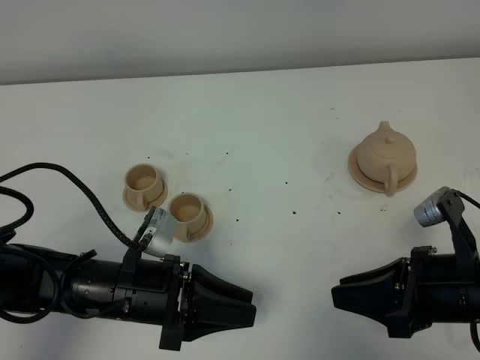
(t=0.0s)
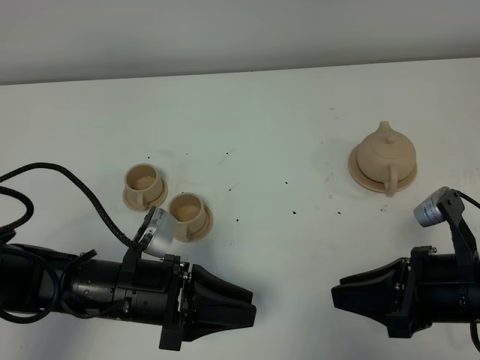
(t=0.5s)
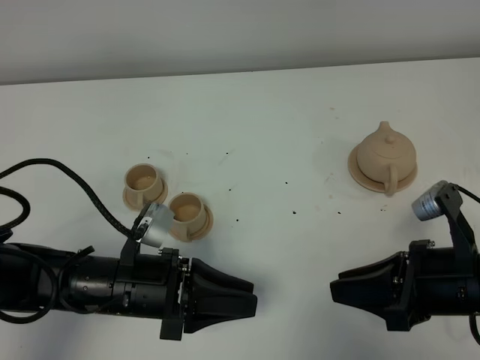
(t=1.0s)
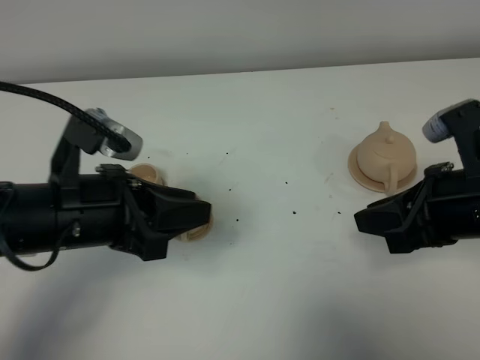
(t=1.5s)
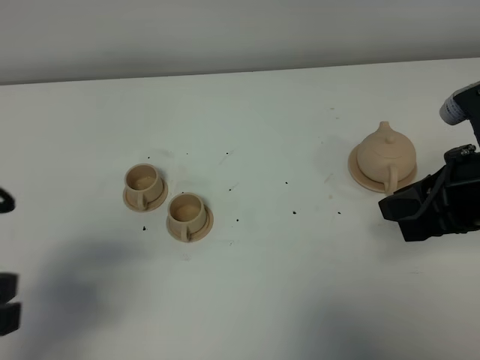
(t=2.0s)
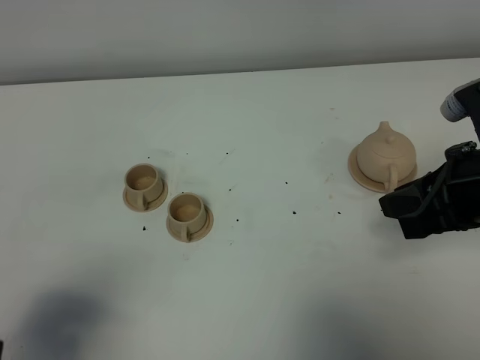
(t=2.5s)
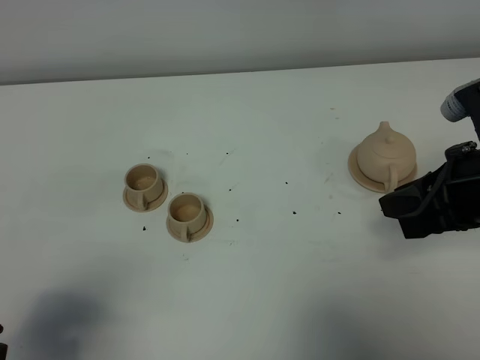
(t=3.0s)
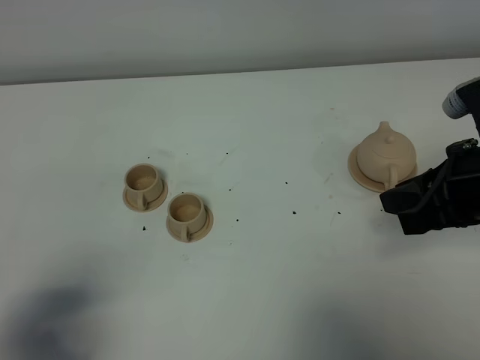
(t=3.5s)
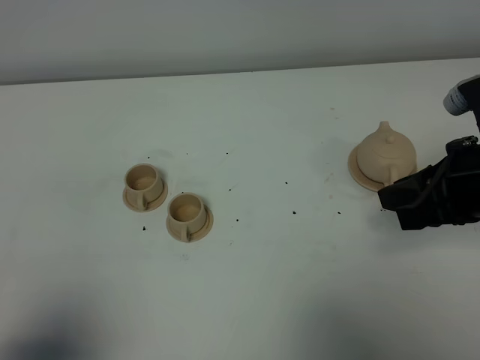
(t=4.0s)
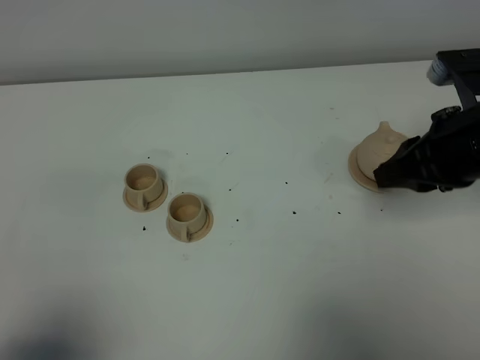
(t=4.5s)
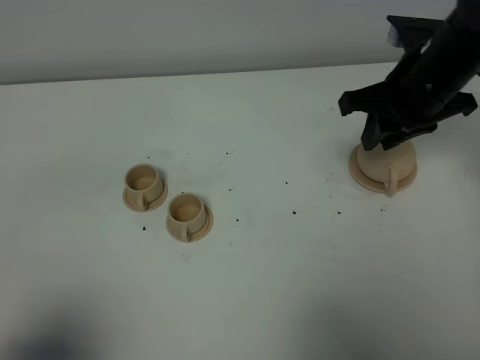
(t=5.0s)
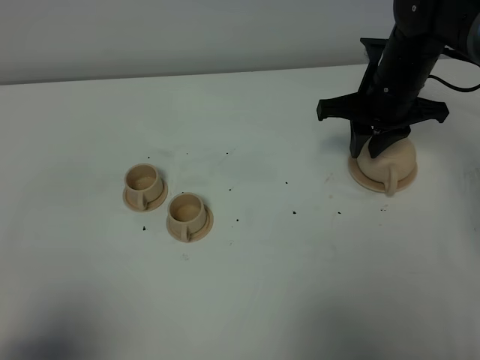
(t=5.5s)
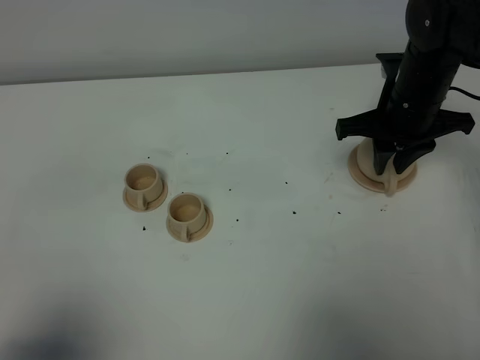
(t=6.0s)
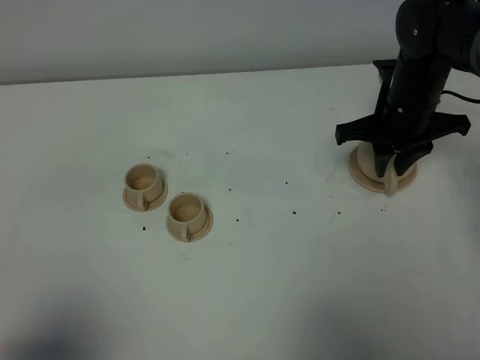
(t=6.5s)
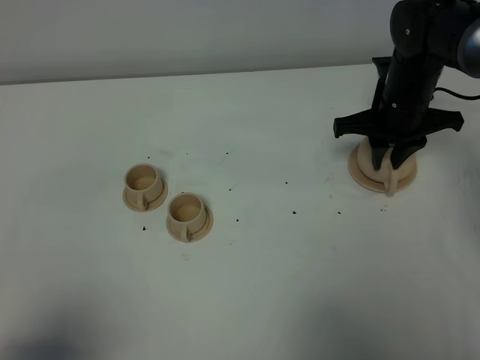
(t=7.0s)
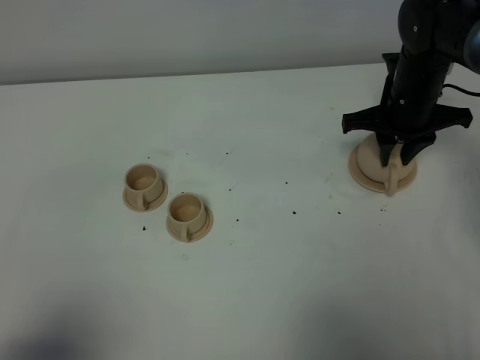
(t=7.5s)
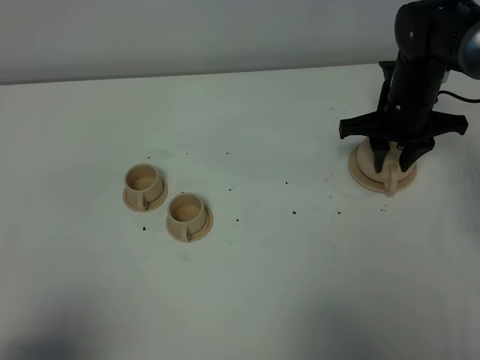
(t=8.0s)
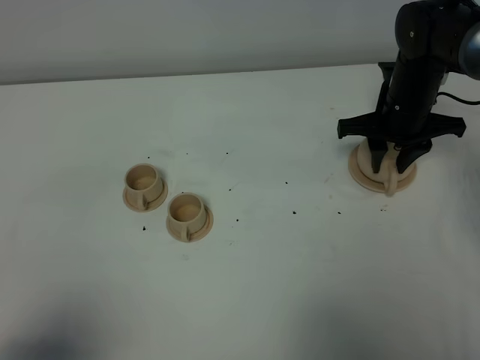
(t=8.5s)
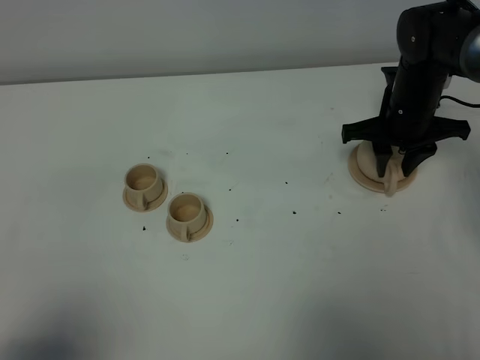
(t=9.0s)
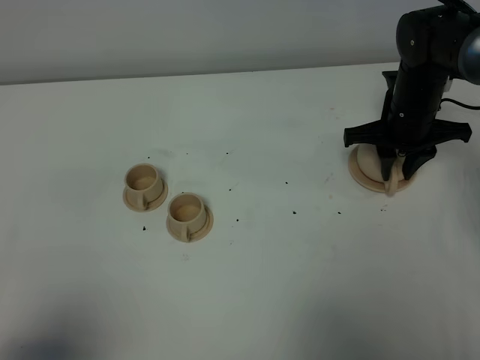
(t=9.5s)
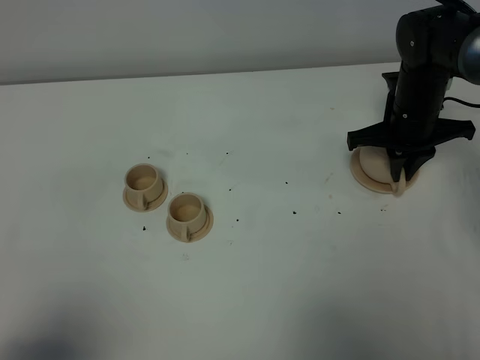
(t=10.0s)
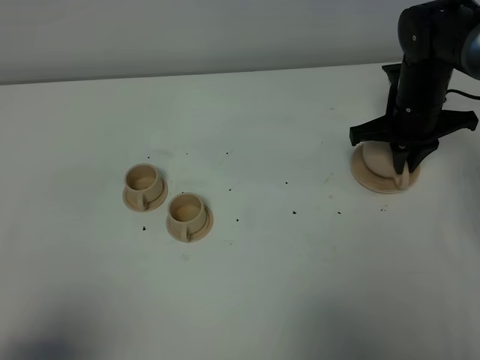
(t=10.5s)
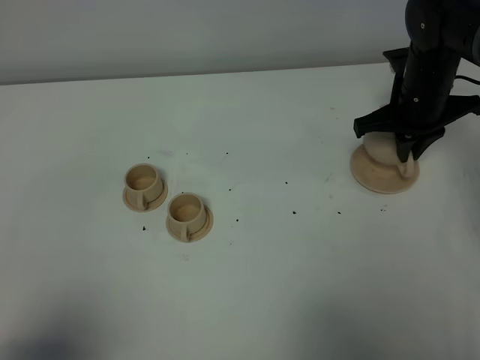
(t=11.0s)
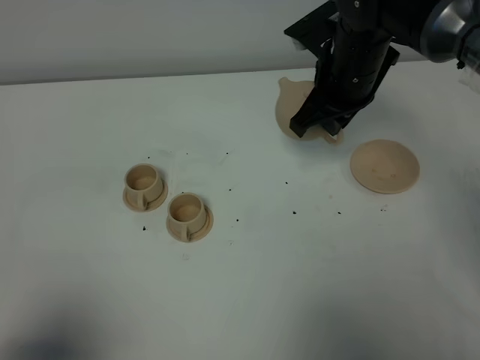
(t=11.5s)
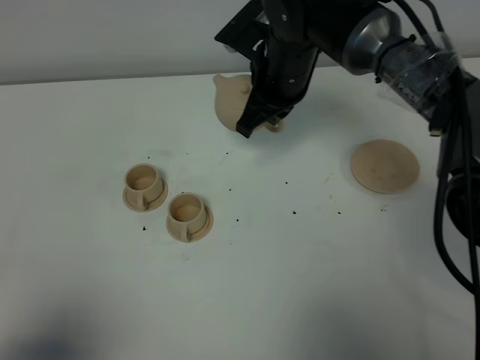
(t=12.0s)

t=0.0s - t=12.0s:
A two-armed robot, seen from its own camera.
Task of the whole recording: grasp the brown teapot and pour the tea into the two brown teacups one by one, put the brown teapot back in its original place.
Step, t=0.0s - t=10.5s: Pick up the teapot with the right gripper.
t=0.0s - t=2.0s: The left gripper moves upward, to the left and backward, some 25 cm. The right gripper goes some 10 cm upward and forward.
t=2.0s - t=4.0s: The left gripper is displaced backward by approximately 10 cm.
t=4.0s - t=6.0s: The right gripper travels forward by approximately 15 cm.
t=6.0s - t=8.0s: The right gripper changes place by some 5 cm, and opens.
t=8.0s - t=10.0s: The right gripper closes its fingers.
t=10.0s - t=12.0s: The right gripper moves to the left and upward, roughly 20 cm.

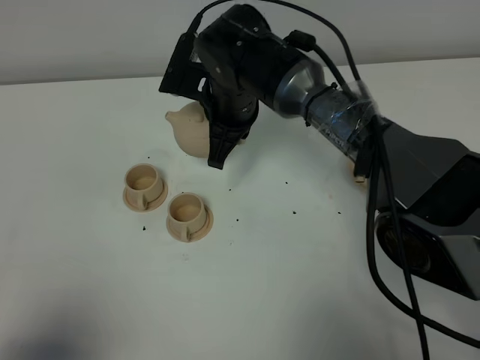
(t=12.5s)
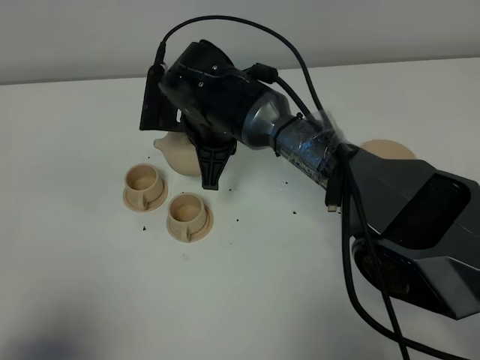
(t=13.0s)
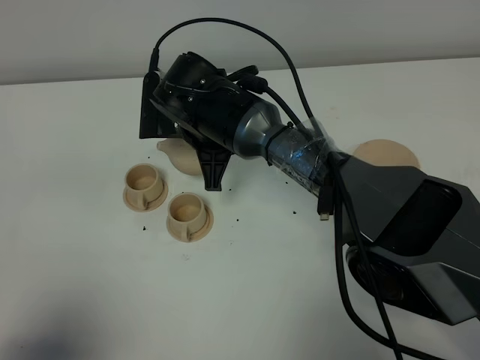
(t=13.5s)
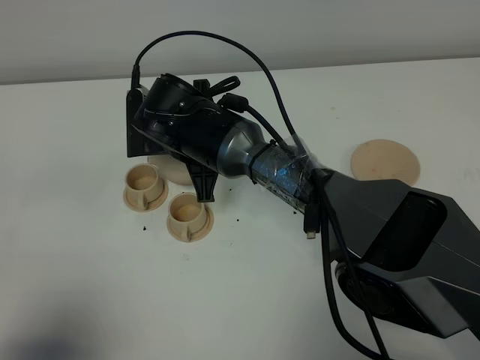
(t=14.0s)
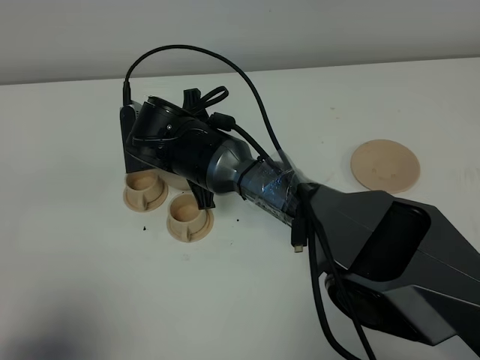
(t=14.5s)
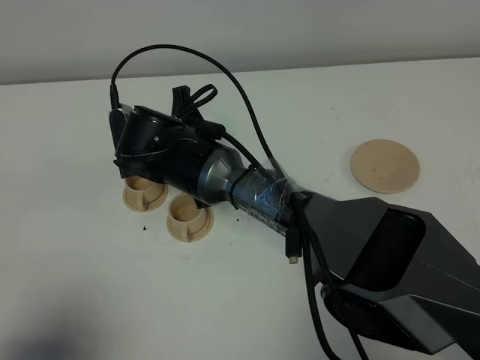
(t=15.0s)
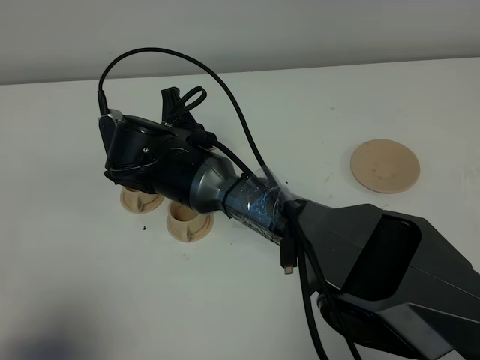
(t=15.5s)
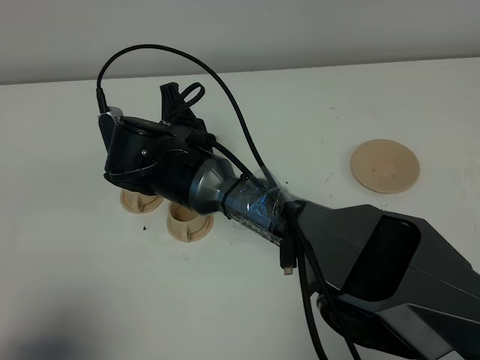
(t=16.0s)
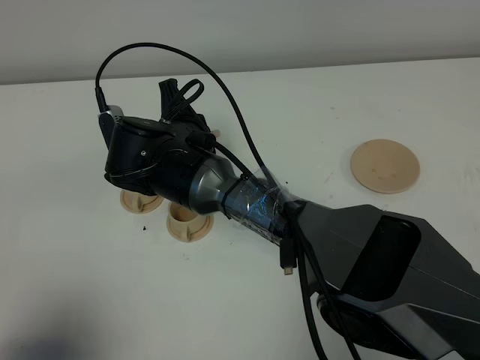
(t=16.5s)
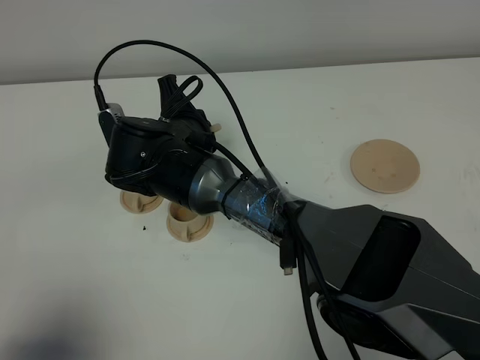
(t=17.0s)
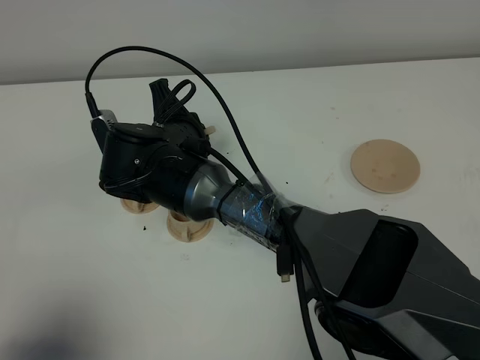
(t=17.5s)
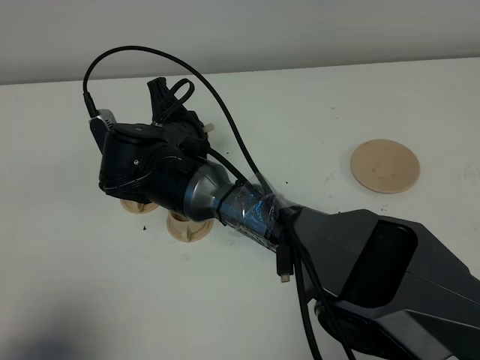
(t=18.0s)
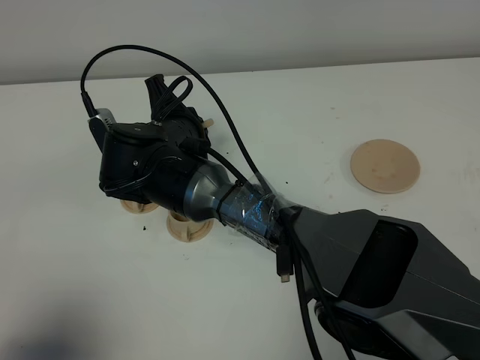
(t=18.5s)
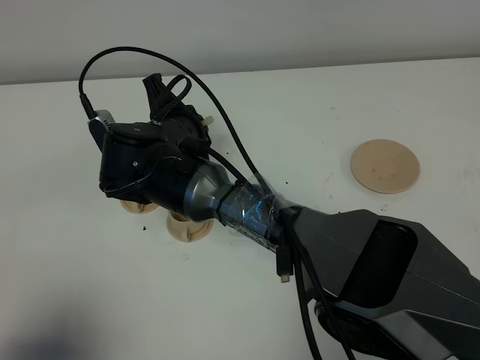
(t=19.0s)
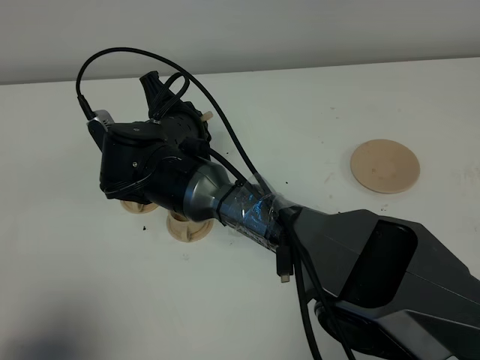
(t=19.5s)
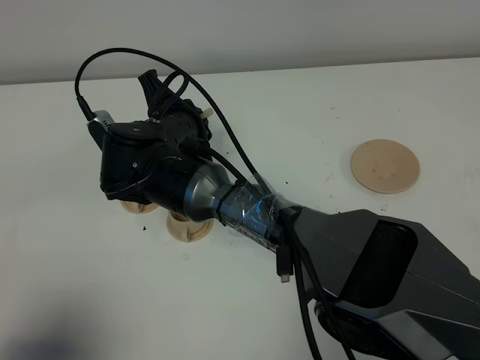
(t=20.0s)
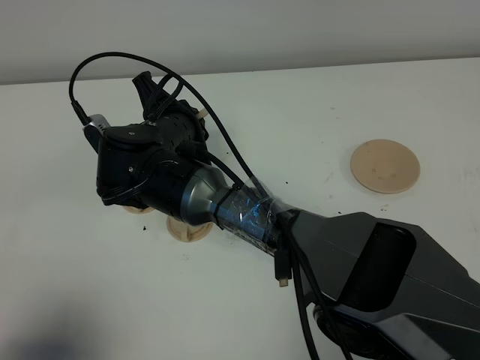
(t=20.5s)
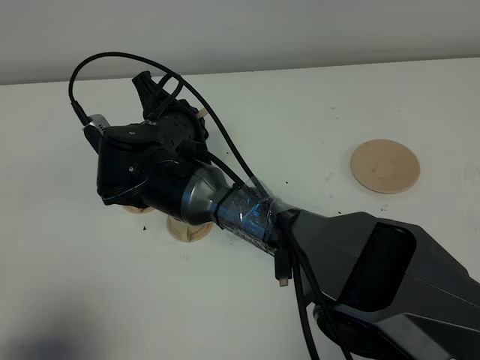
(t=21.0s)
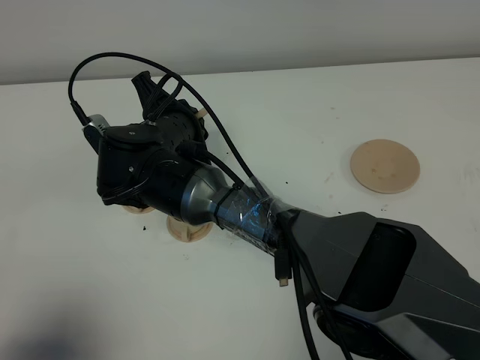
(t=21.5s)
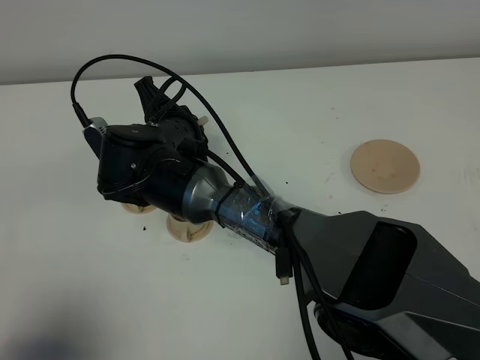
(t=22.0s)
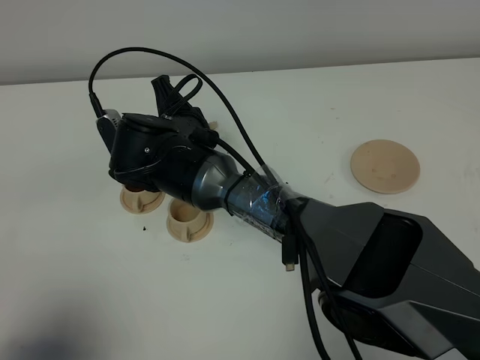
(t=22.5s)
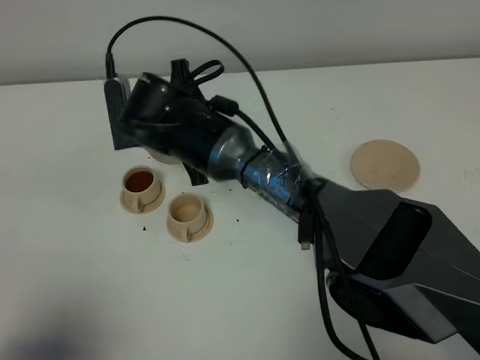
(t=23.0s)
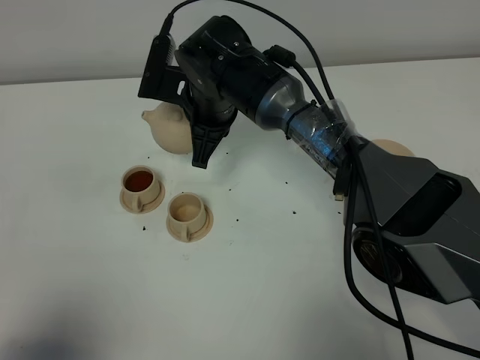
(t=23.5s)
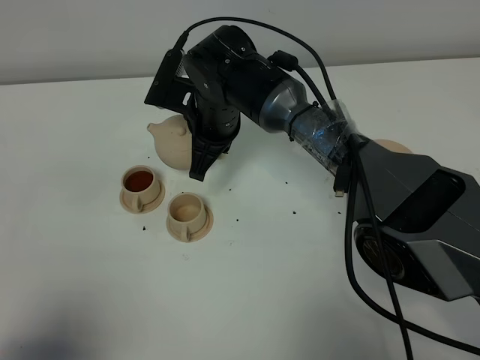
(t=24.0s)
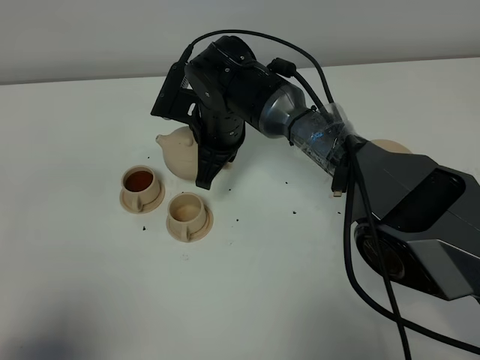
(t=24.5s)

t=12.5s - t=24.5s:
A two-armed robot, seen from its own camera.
Task of the whole recording: grasp the brown teapot and pour the tea into the two brown teacups one by one, put the brown teapot back in its original place.
t=12.5s - t=14.5s: The right gripper goes some 5 cm to the left.
t=14.5s - t=16.5s: The grippers make only small movements.
t=16.5s - t=22.5s: There are only small adjustments of the grippers.
t=22.5s - t=24.5s: The right gripper is displaced forward and to the right by some 10 cm.

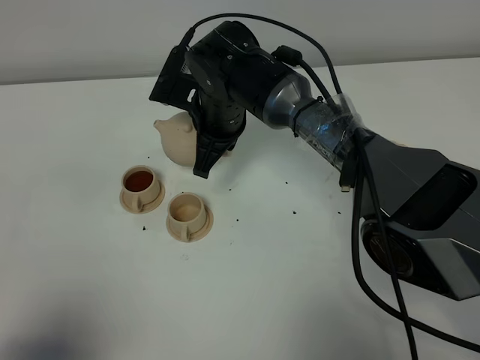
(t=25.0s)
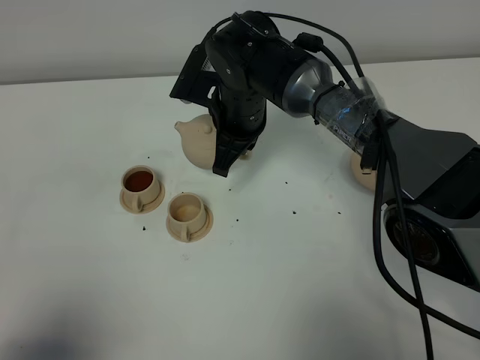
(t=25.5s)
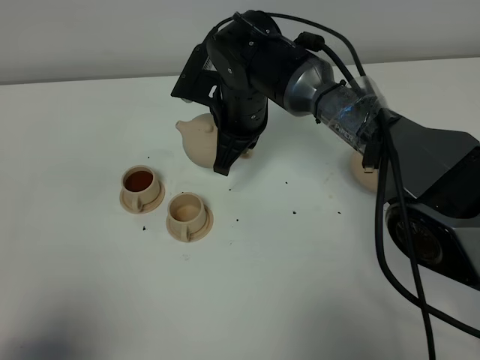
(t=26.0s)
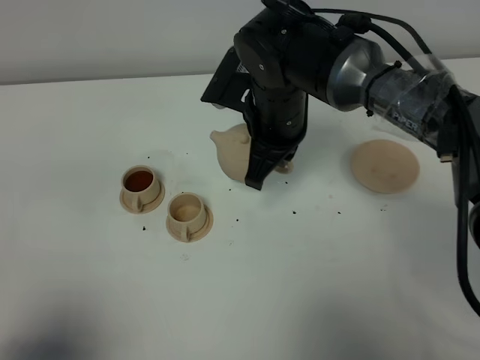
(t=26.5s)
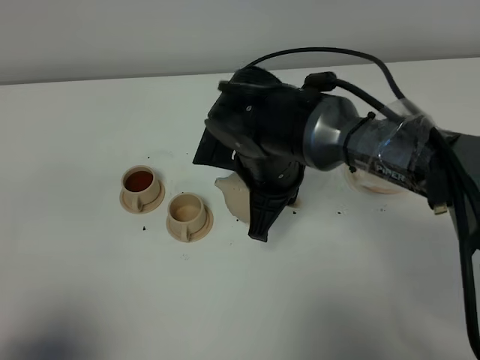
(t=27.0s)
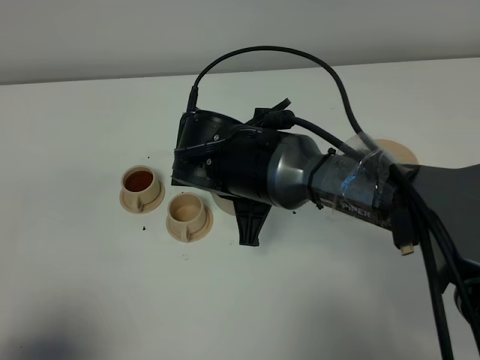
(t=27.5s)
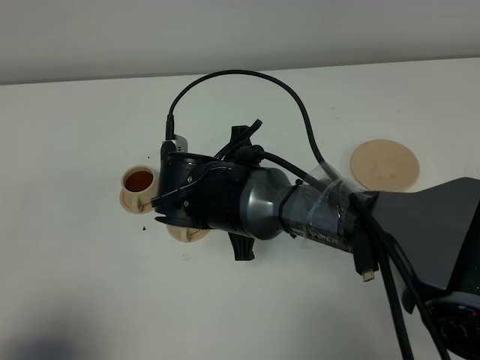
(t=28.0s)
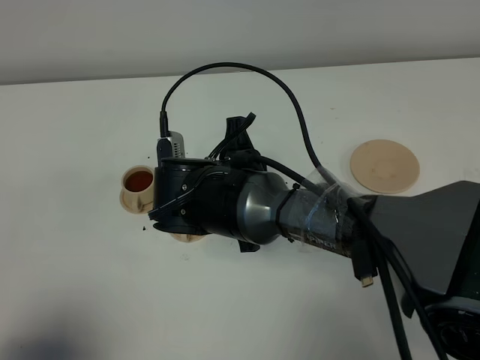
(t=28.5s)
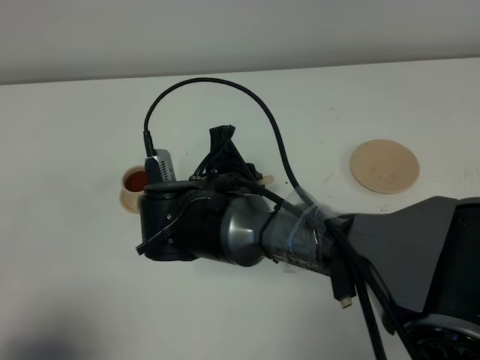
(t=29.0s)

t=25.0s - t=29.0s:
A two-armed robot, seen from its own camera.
Task of the whole recording: grasp the brown teapot and pour the tea into the two brown teacups one by one, put the brown teapot back in its original place.
t=25.0s - t=27.0s: The right gripper heads backward and to the right, covering approximately 10 cm.
t=27.0s - t=29.0s: The right gripper is displaced to the left by approximately 5 cm.
